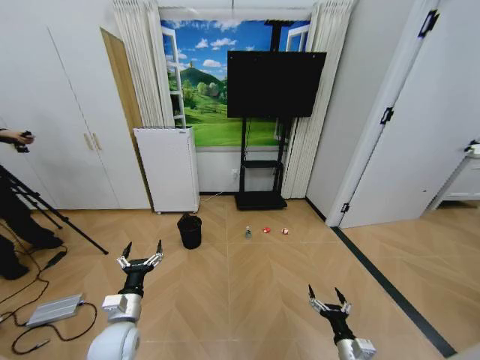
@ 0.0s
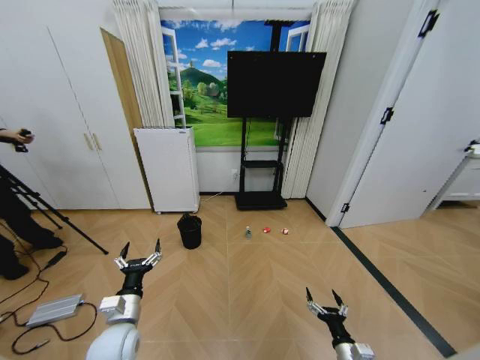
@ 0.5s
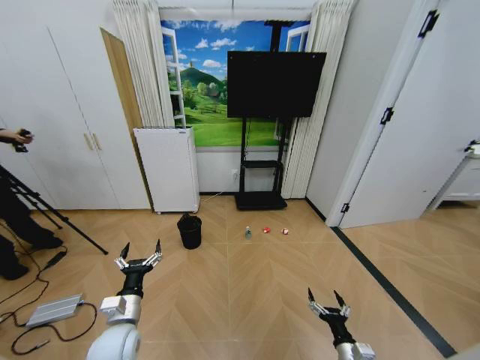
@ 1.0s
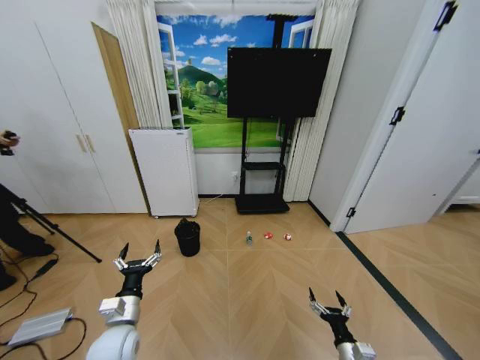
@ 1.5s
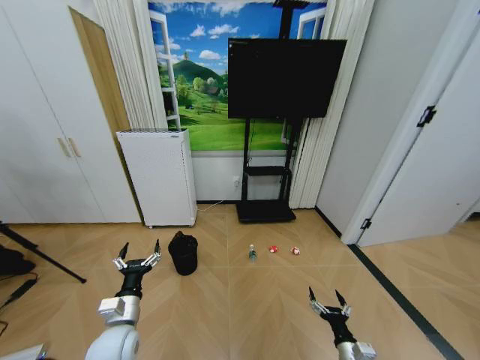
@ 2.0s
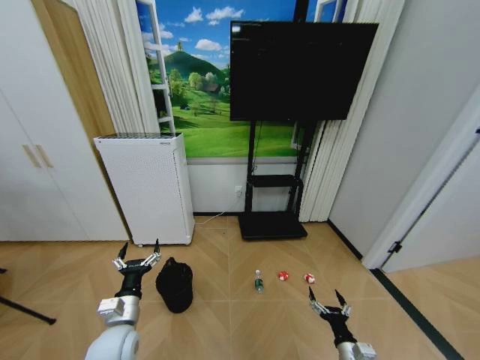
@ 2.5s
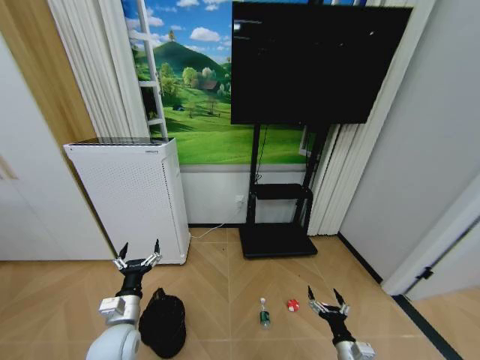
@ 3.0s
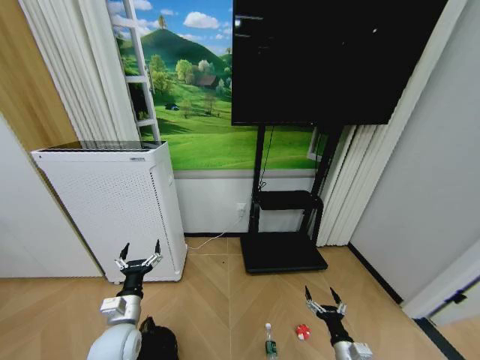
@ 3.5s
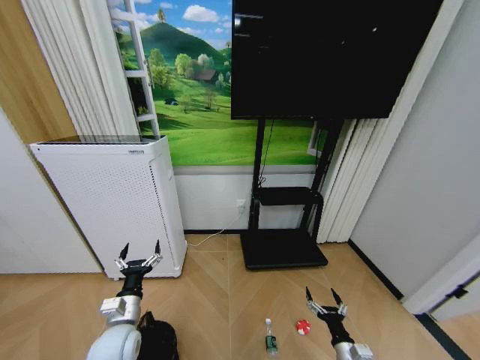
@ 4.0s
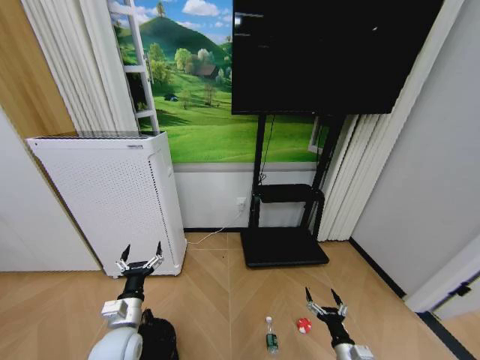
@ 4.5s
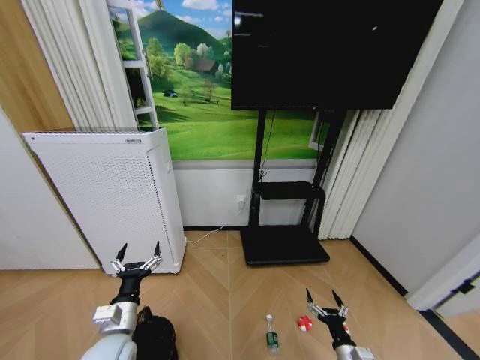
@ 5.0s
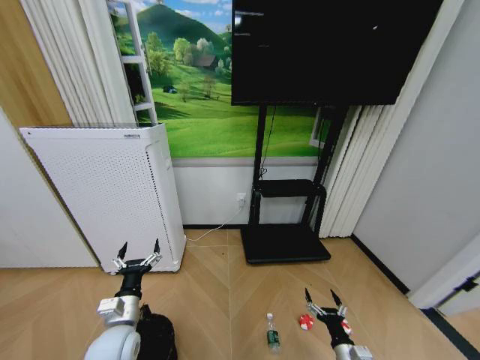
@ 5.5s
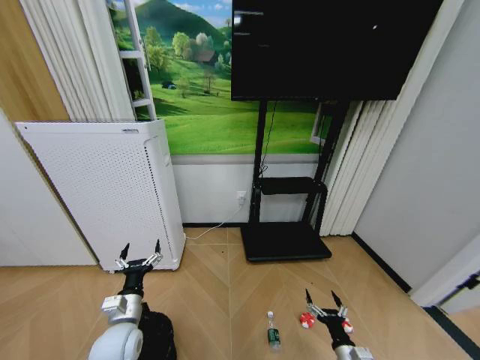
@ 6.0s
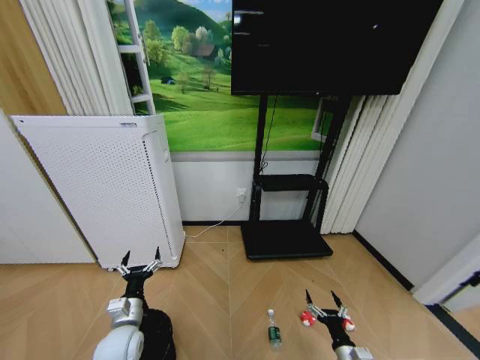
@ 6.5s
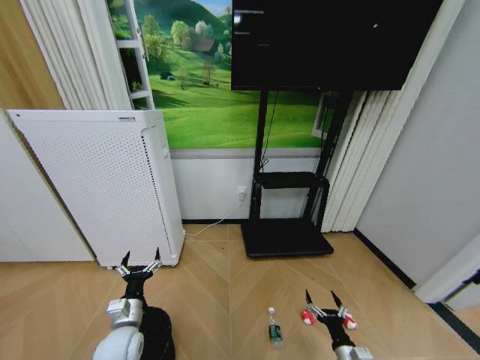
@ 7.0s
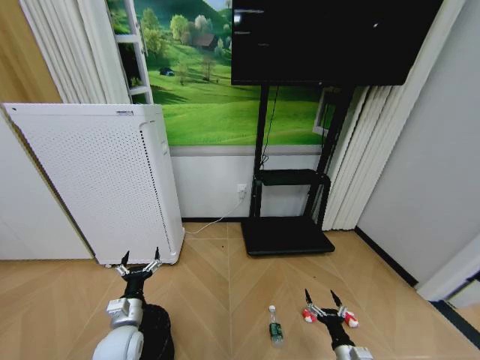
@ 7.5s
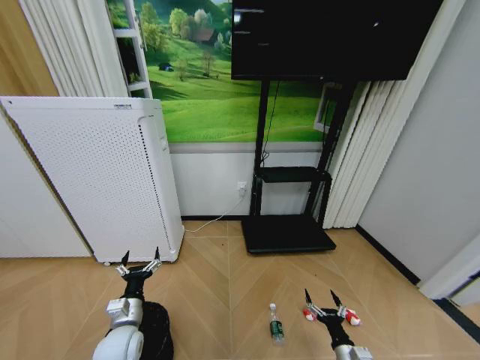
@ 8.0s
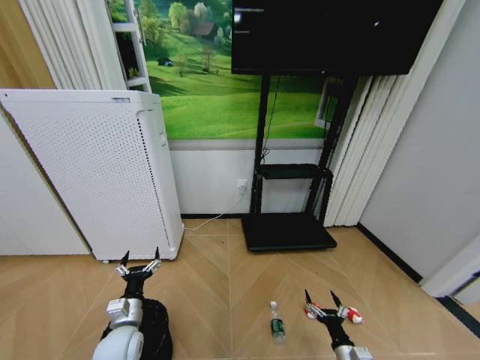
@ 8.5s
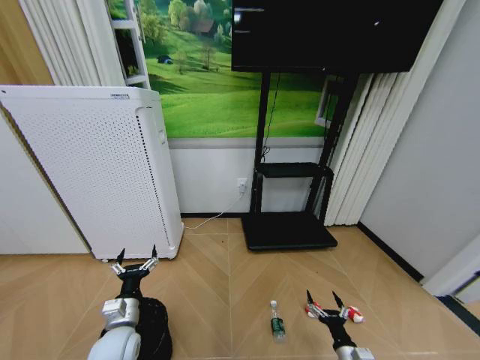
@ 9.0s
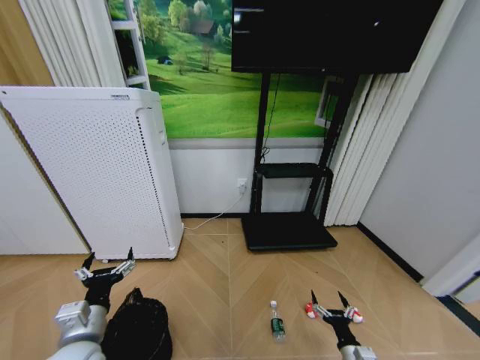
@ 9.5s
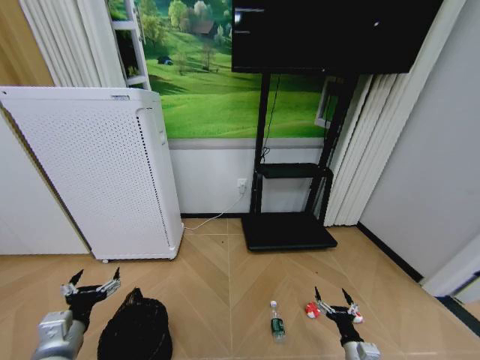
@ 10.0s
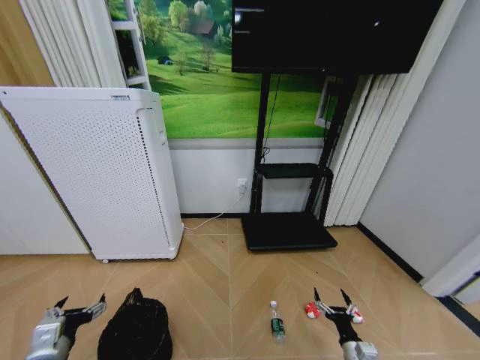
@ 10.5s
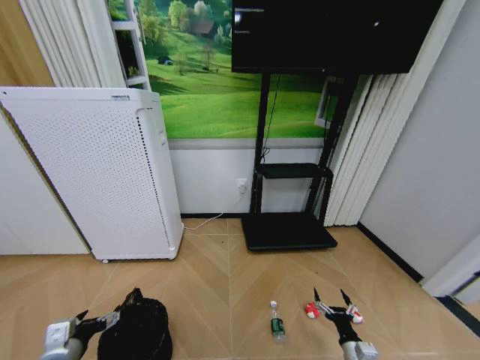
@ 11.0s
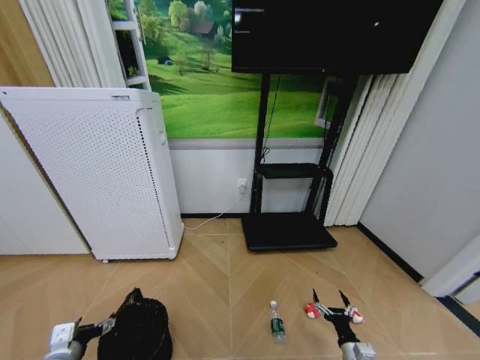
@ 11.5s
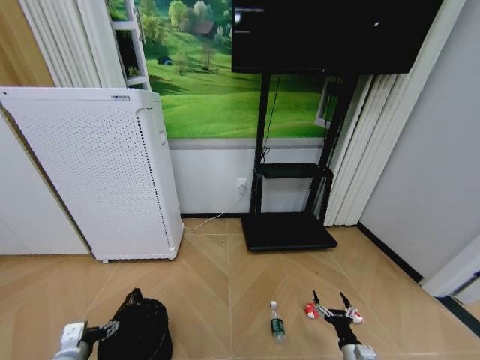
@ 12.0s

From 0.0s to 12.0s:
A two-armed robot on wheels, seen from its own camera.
Task of the whole recording: Pick up the trash bin and place the garbage on the floor into it.
From 4.0s to 8.0s: The grippers move only a little.
From 8.0s to 10.0s: The left gripper is displaced upward, backward and to the left by approximately 15 cm.
From 10.0s to 12.0s: The left gripper goes approximately 5 cm downward.

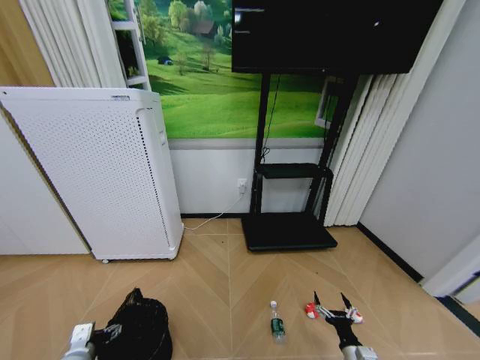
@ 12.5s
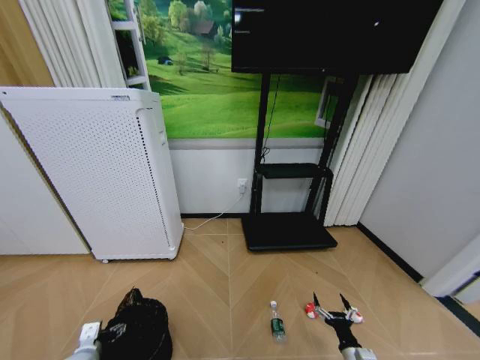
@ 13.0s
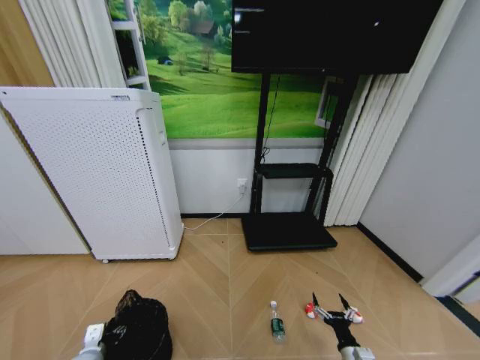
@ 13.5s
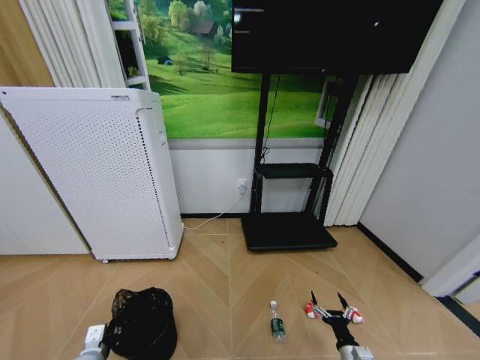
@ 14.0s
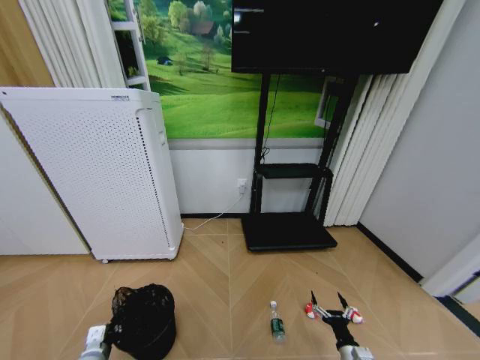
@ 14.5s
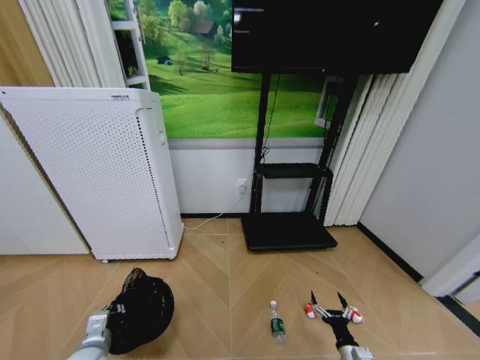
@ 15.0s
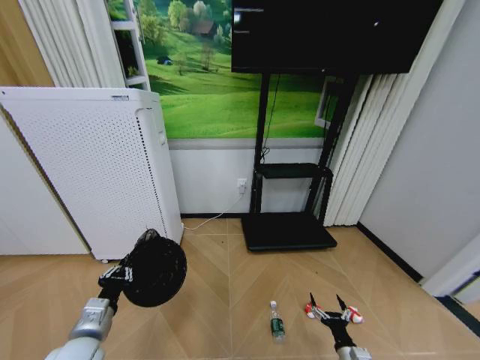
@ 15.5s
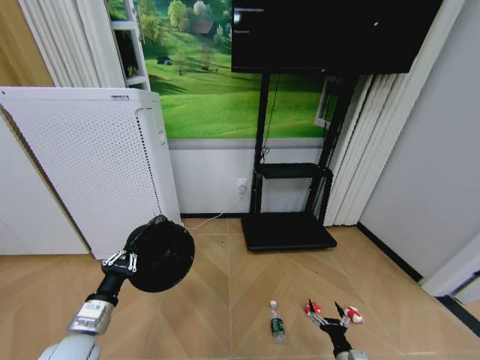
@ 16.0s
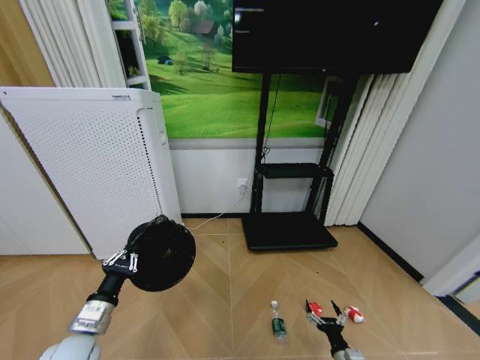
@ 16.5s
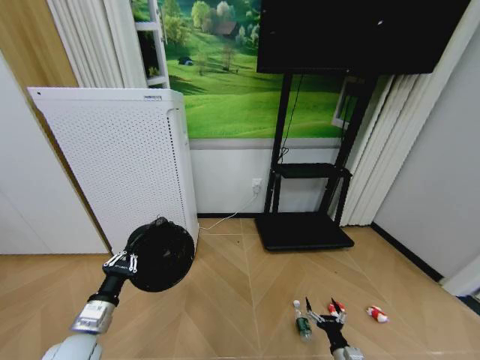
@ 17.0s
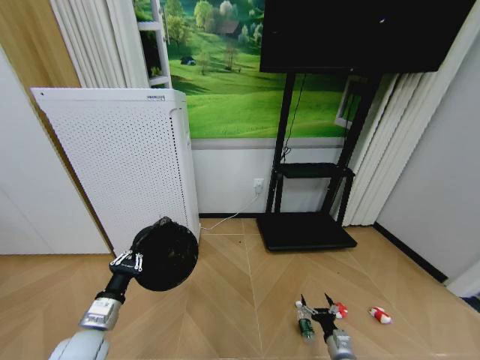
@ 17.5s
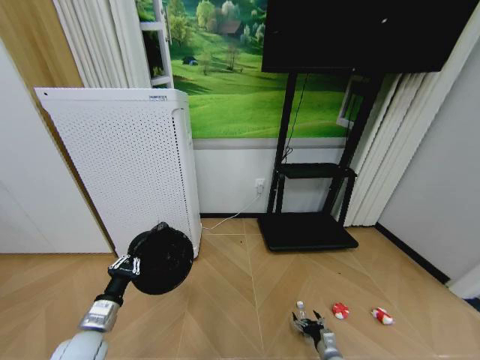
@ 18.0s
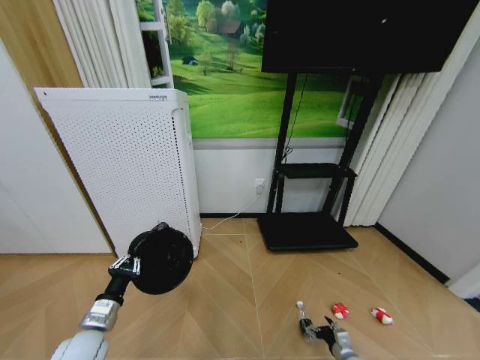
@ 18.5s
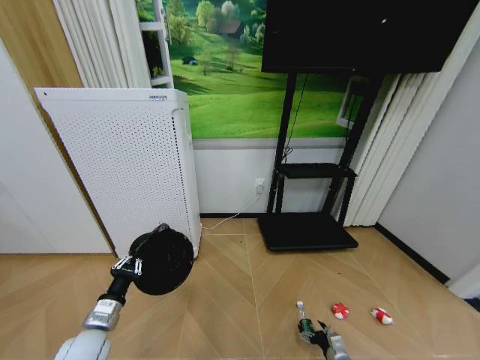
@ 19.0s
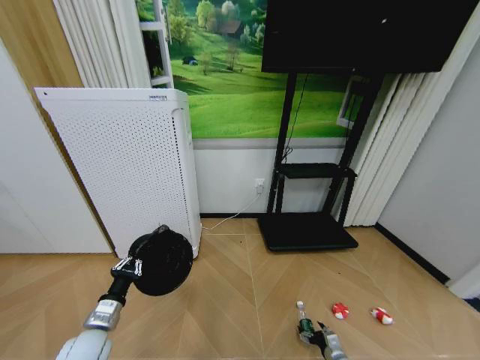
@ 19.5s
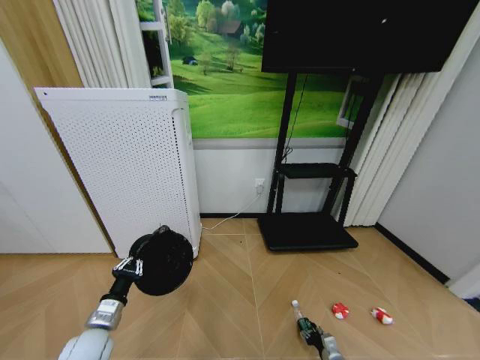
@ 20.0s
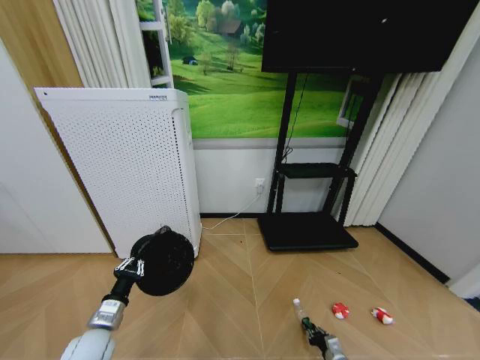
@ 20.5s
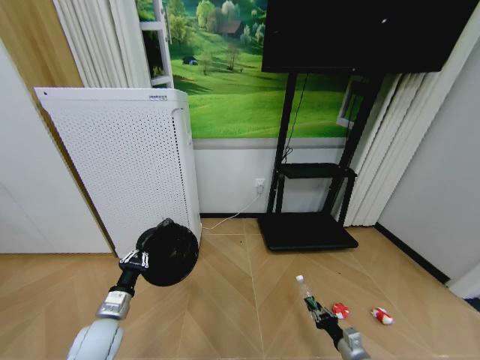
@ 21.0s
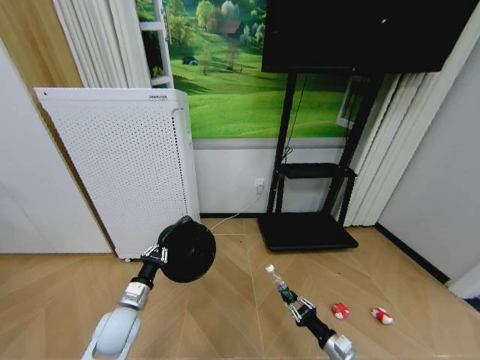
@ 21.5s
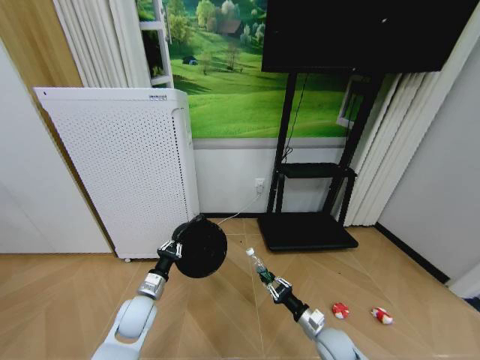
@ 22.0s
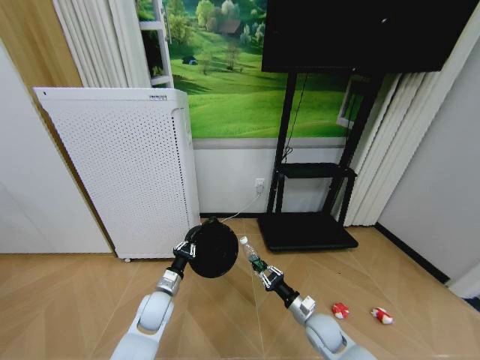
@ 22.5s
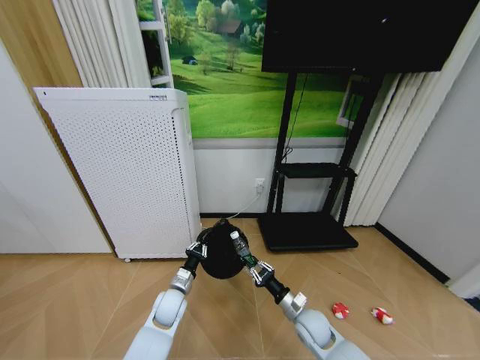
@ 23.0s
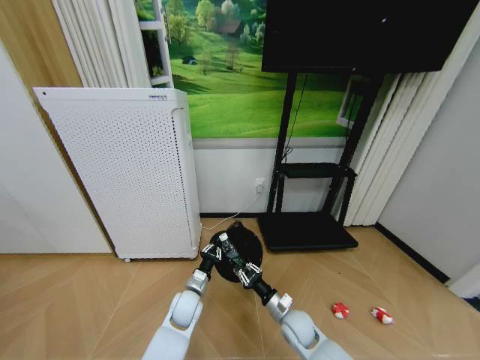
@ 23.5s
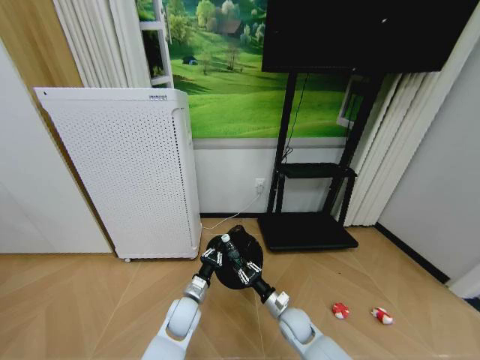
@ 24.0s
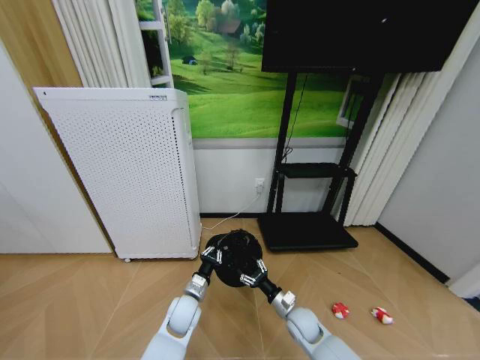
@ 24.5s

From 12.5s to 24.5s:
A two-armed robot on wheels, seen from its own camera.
Task of the whole recording: Pick up the trash bin and place the garbage on the floor into it.
From 12.5s to 14.5s: The left gripper closes up.
From 14.5s to 16.5s: The left gripper travels upward by about 15 cm.
From 16.5s to 18.5s: The right gripper shifts about 10 cm forward and to the right.
From 18.5s to 20.5s: The right gripper closes up.
From 20.5s to 22.5s: The right gripper is displaced upward, to the left and forward by roughly 20 cm, while the left gripper shifts approximately 15 cm to the right and forward.
From 22.5s to 24.5s: The left gripper heads to the right, covering some 10 cm. Meanwhile the right gripper changes place by roughly 5 cm, and opens its fingers.

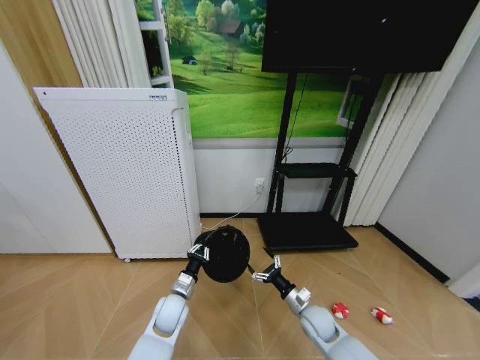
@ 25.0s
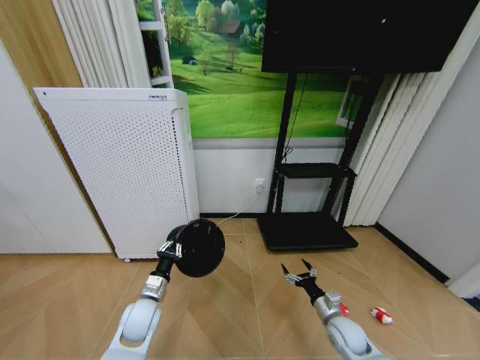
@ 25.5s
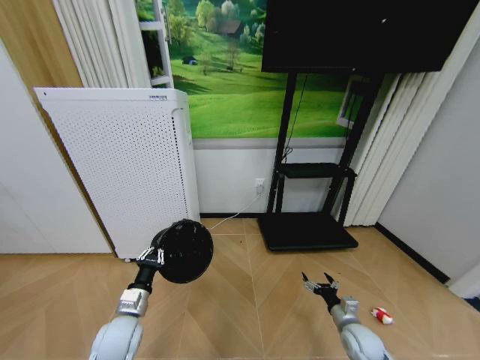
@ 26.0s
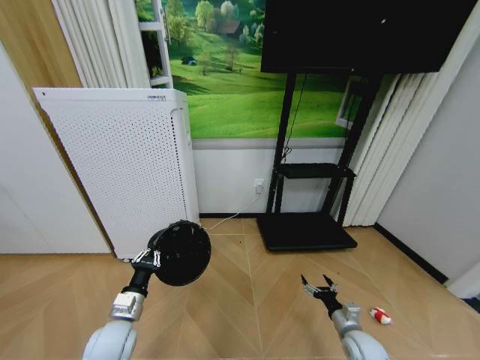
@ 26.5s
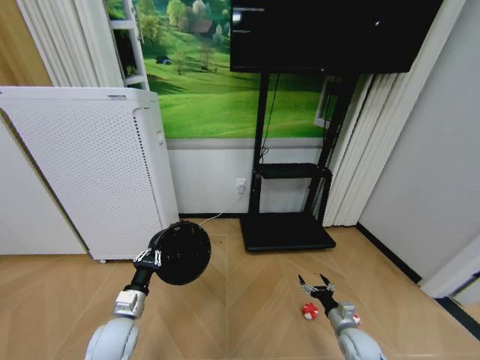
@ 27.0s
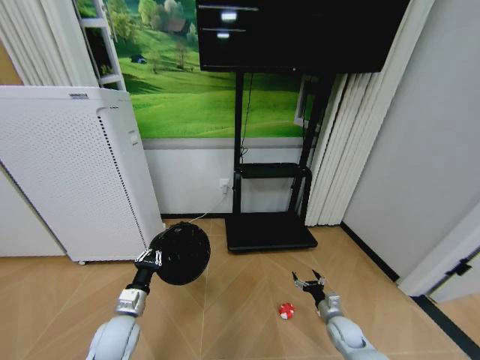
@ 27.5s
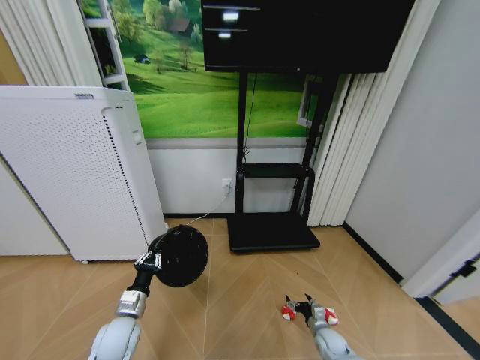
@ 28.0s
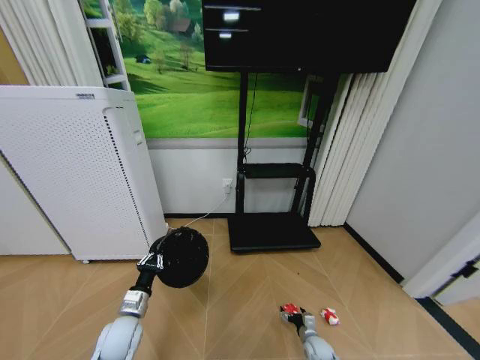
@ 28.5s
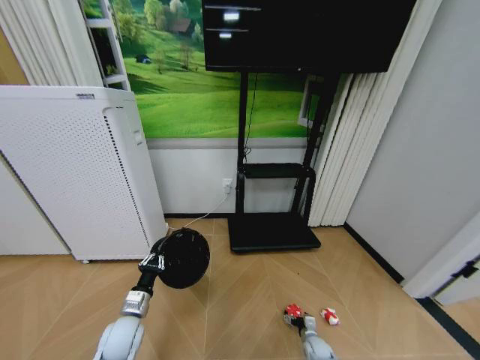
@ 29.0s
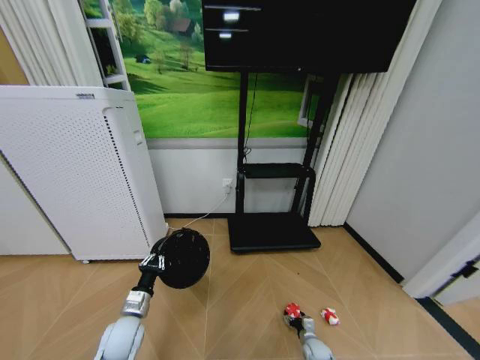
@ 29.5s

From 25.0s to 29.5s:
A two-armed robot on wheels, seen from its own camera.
Task of the whole recording: Pick up the trash bin and place the garbage on the floor into it.
From 25.0s to 27.0s: The left gripper is displaced to the left, backward and upward by about 15 cm. Meanwhile the right gripper heads to the right and backward, covering some 15 cm.
From 27.0s to 29.5s: The right gripper goes roughly 15 cm downward.
